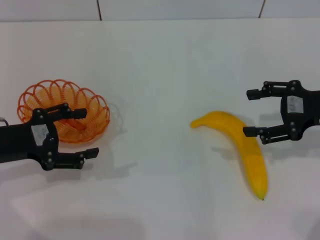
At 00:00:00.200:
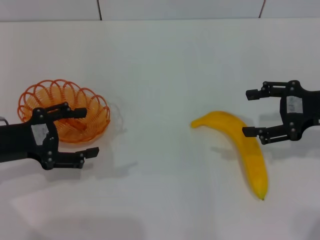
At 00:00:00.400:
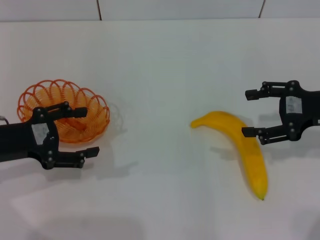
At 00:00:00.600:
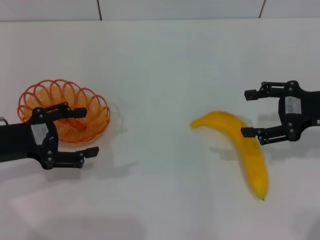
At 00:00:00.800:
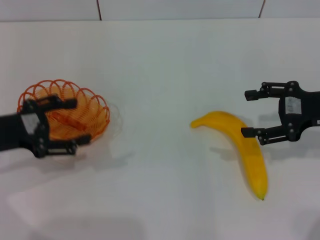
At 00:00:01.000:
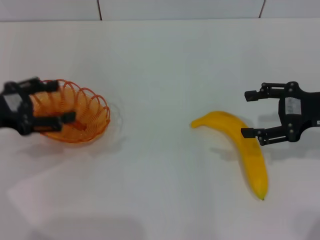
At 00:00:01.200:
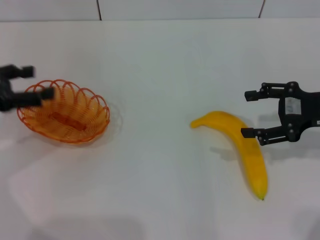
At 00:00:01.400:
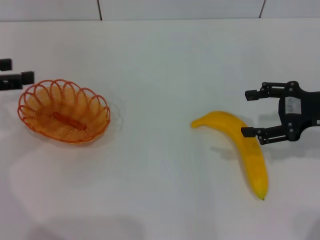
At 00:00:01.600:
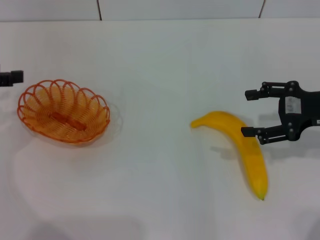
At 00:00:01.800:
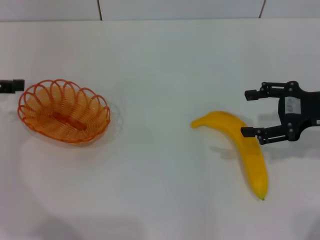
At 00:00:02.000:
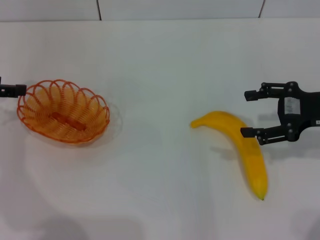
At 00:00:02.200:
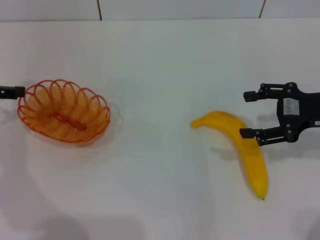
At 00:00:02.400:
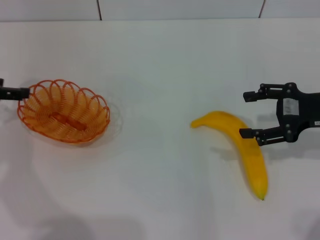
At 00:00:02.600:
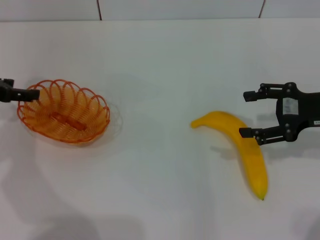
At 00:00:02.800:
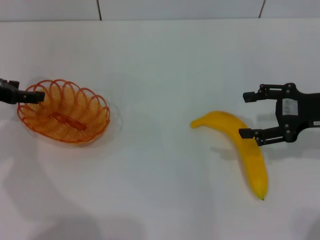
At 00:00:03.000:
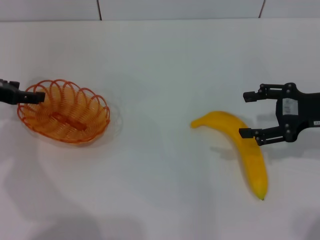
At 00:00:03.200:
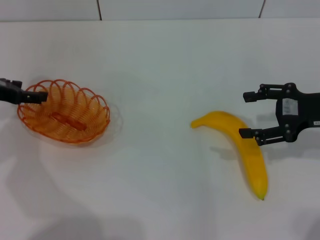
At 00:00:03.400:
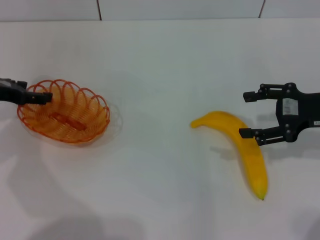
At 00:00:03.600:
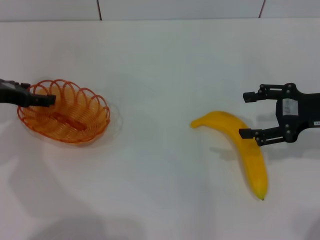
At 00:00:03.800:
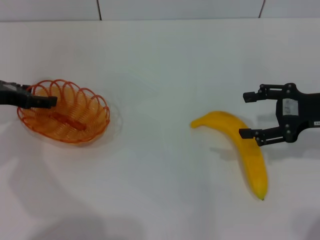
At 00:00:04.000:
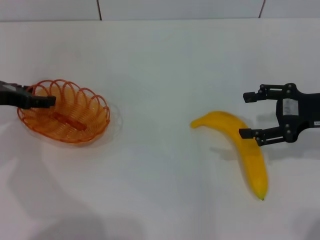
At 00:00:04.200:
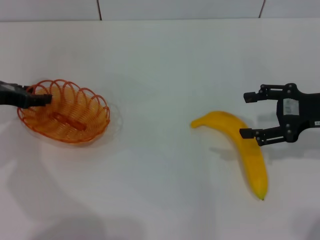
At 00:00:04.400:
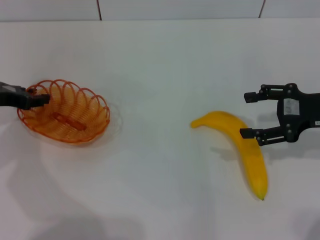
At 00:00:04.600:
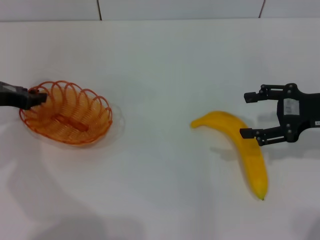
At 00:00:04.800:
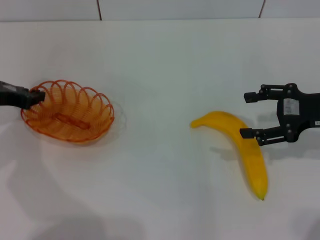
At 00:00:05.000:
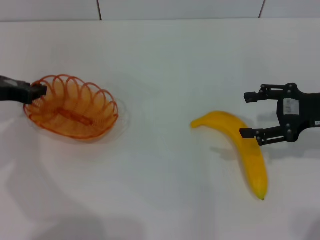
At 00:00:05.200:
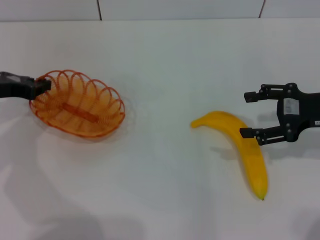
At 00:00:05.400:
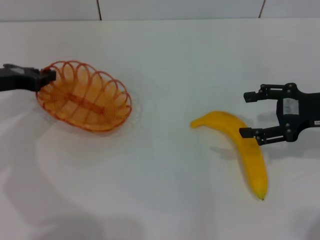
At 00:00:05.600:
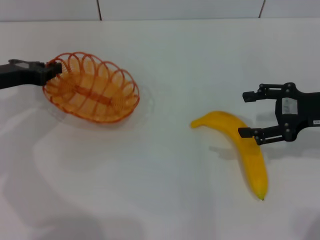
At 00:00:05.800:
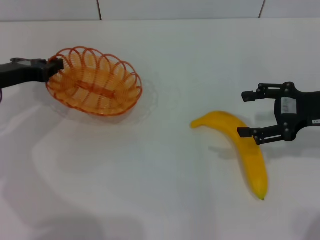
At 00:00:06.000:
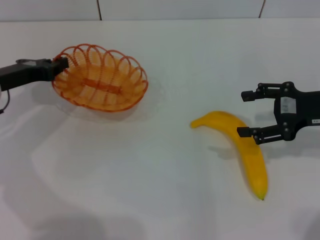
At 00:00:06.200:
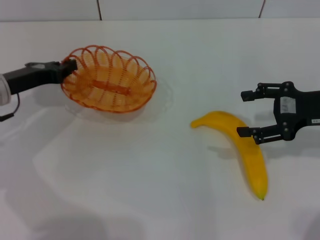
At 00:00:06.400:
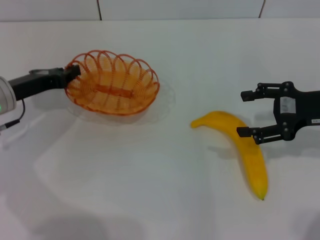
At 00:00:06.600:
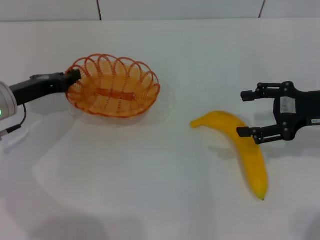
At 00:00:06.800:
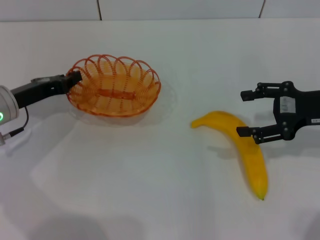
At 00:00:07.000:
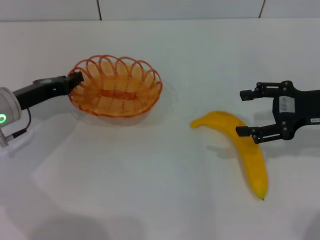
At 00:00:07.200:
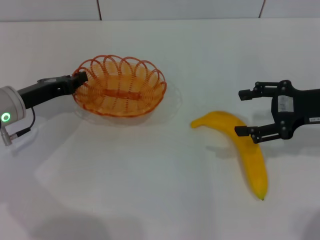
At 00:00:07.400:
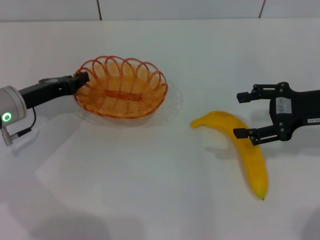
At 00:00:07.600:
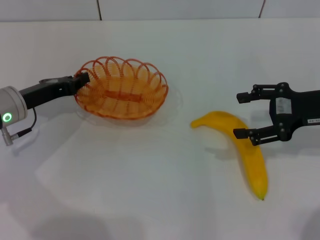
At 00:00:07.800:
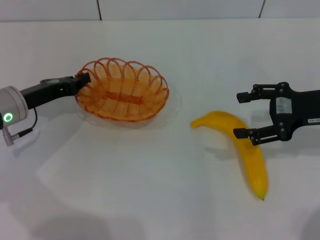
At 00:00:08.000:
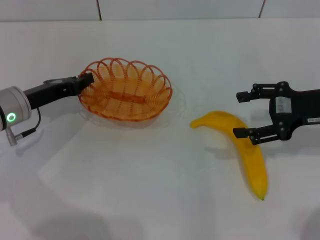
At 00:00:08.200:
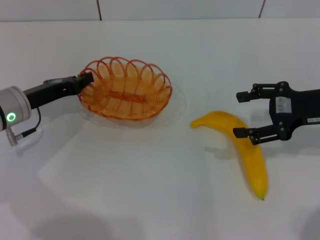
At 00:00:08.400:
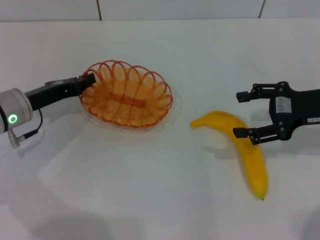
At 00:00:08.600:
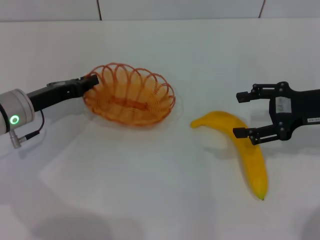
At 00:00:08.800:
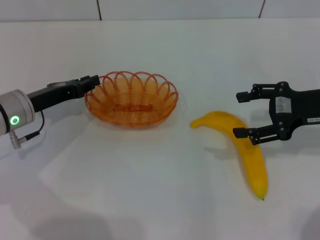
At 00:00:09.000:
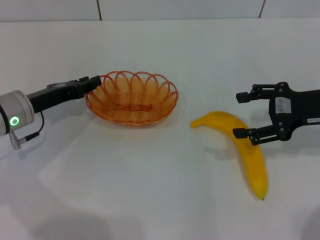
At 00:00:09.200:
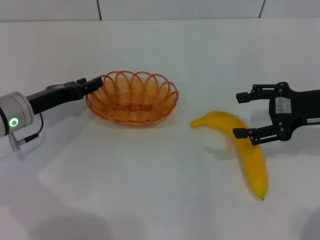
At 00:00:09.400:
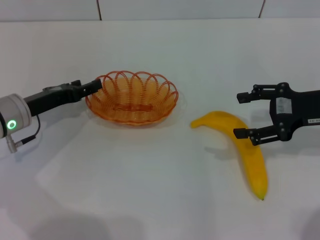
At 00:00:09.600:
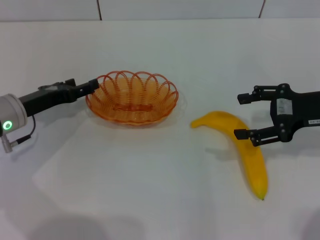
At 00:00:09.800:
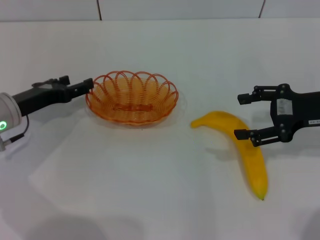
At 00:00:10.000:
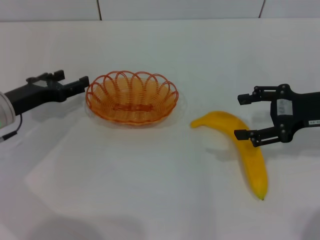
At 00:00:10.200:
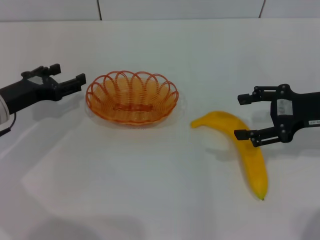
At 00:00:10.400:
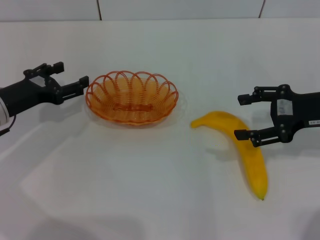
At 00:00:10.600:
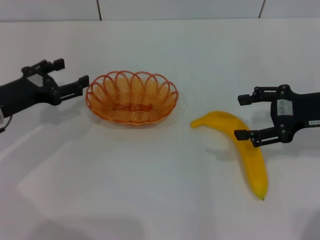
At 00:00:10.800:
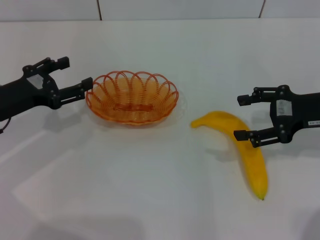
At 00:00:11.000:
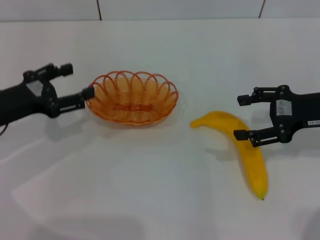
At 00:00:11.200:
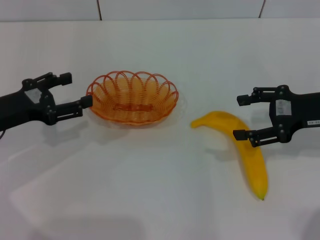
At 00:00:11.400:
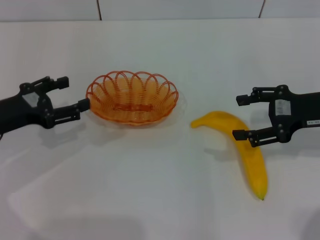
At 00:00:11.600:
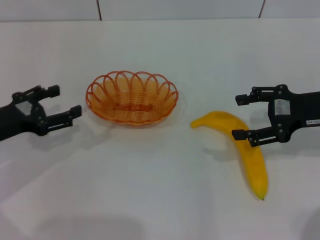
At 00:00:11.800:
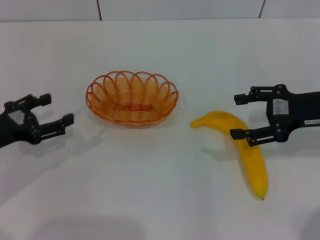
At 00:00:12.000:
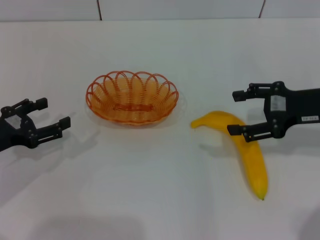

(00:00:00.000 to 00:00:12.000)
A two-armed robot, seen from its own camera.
Step, 00:00:00.000 - 00:00:05.000: Pick up the basket with the left gripper.
Step, 00:00:05.200 - 00:00:10.600: Place the basket in the center of view with the left gripper.
00:00:00.000 - 00:00:01.600: The left gripper shifts some 10 cm upward, to the left and forward.
00:00:01.600 - 00:00:03.000: The left gripper shifts some 5 cm downward.
00:00:03.000 - 00:00:04.400: The left gripper closes.
00:00:04.400 - 00:00:06.000: The left gripper closes up.
00:00:06.000 - 00:00:07.600: The grippers move only a little.
00:00:07.600 - 00:00:09.000: Both grippers stay put.
00:00:09.000 - 00:00:10.400: The left gripper opens up.
00:00:10.400 - 00:00:12.000: The left gripper shifts approximately 5 cm backward.

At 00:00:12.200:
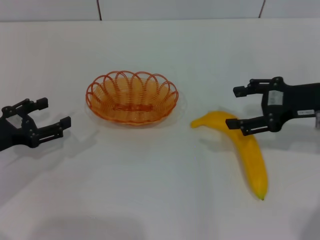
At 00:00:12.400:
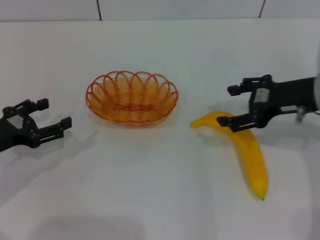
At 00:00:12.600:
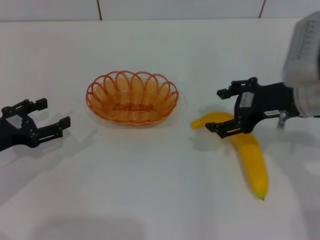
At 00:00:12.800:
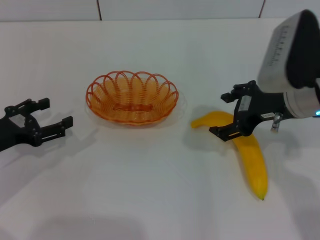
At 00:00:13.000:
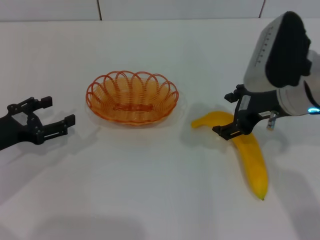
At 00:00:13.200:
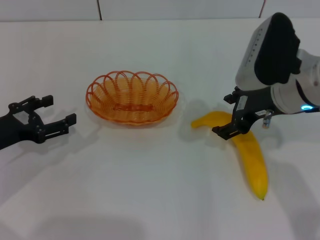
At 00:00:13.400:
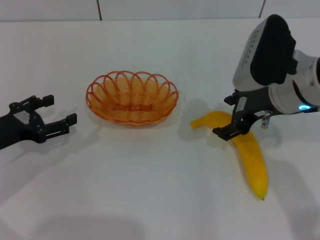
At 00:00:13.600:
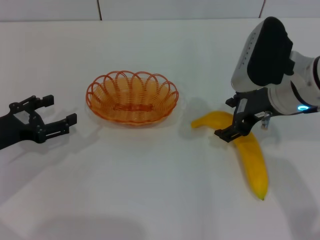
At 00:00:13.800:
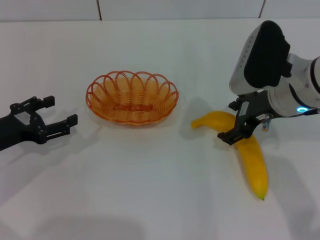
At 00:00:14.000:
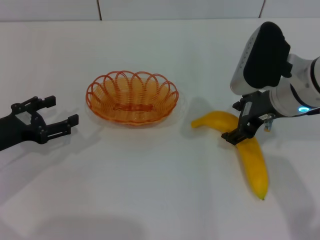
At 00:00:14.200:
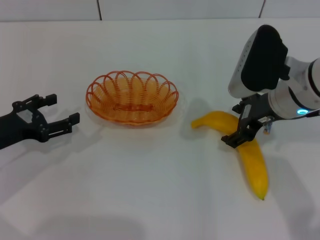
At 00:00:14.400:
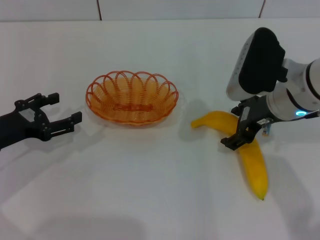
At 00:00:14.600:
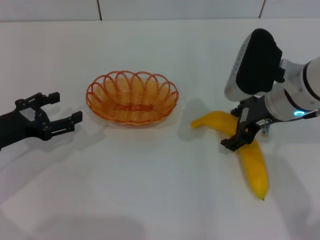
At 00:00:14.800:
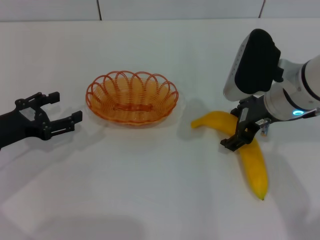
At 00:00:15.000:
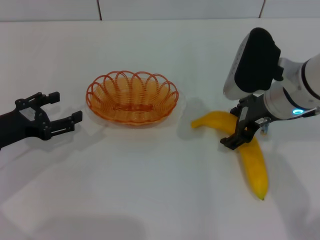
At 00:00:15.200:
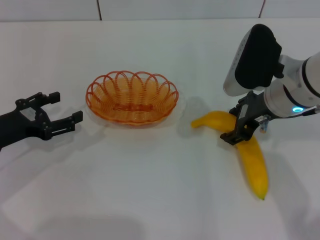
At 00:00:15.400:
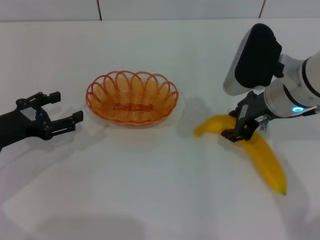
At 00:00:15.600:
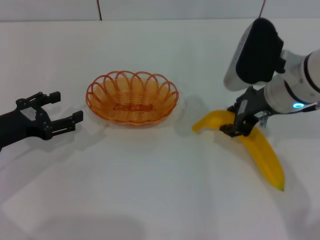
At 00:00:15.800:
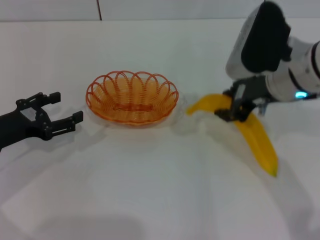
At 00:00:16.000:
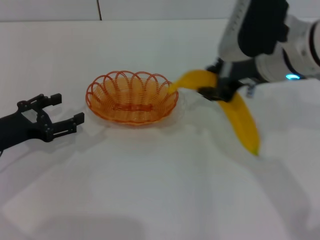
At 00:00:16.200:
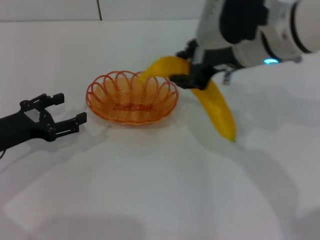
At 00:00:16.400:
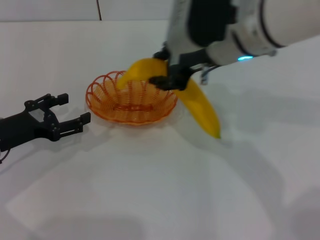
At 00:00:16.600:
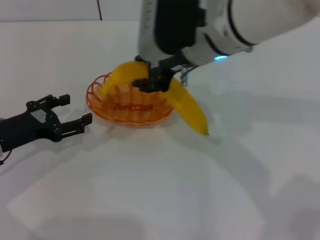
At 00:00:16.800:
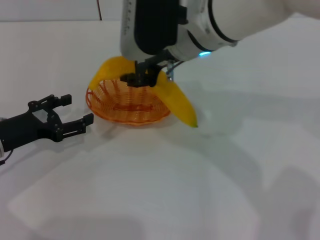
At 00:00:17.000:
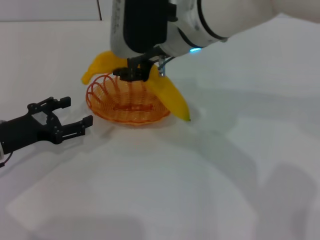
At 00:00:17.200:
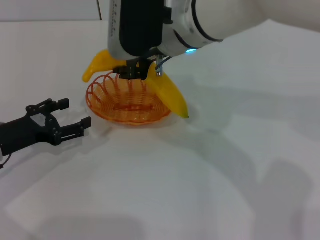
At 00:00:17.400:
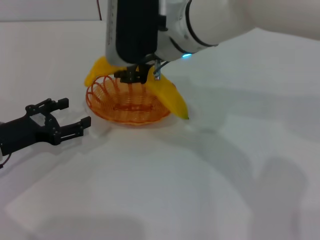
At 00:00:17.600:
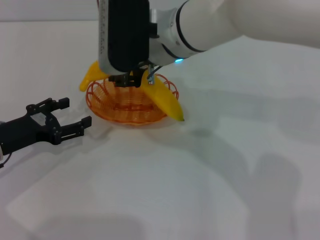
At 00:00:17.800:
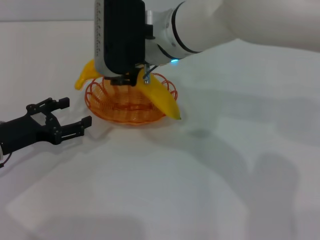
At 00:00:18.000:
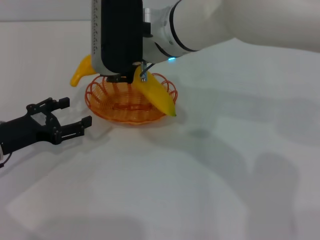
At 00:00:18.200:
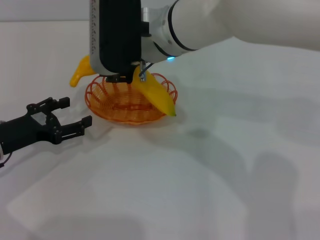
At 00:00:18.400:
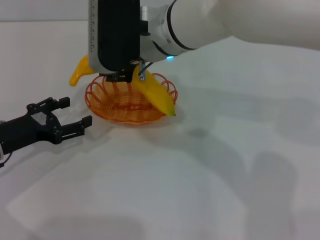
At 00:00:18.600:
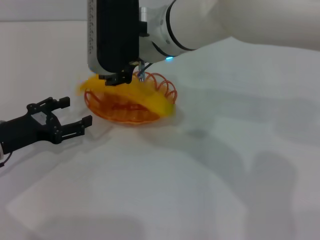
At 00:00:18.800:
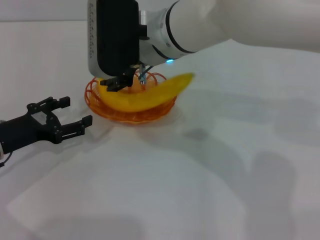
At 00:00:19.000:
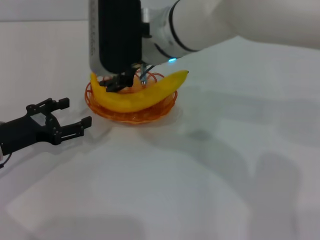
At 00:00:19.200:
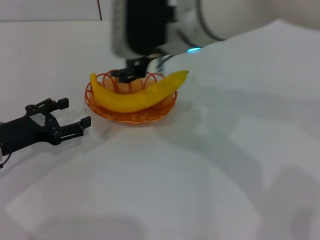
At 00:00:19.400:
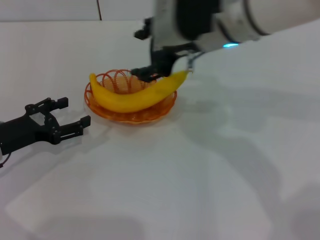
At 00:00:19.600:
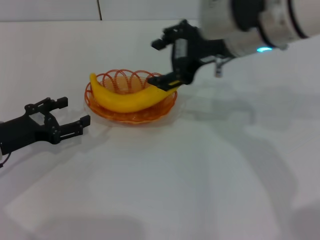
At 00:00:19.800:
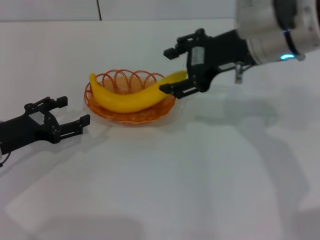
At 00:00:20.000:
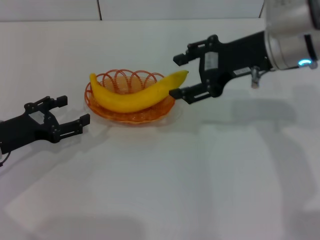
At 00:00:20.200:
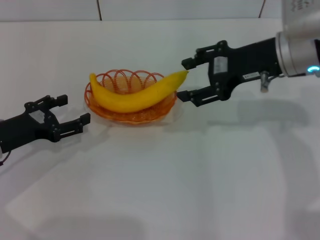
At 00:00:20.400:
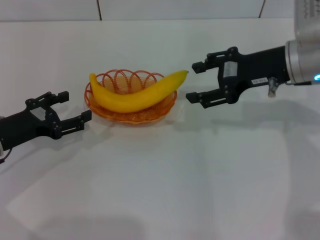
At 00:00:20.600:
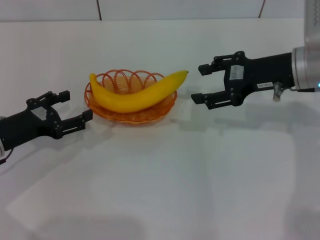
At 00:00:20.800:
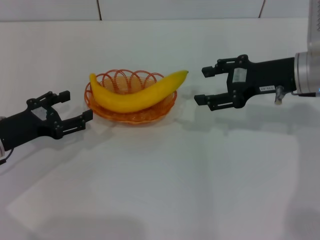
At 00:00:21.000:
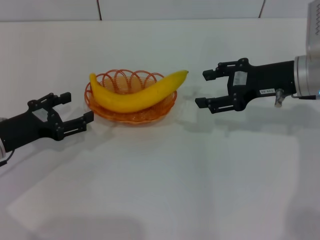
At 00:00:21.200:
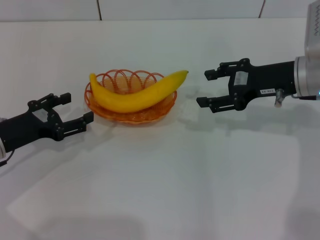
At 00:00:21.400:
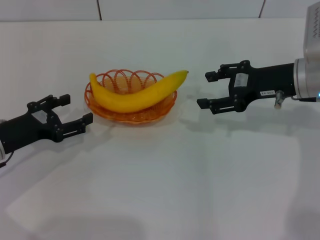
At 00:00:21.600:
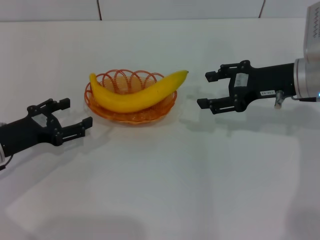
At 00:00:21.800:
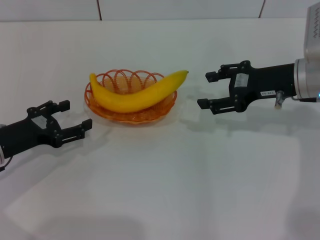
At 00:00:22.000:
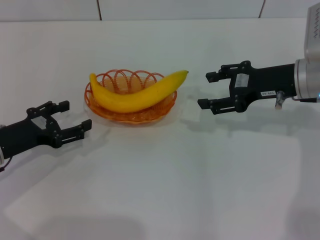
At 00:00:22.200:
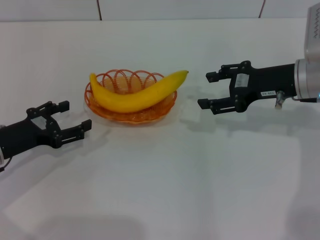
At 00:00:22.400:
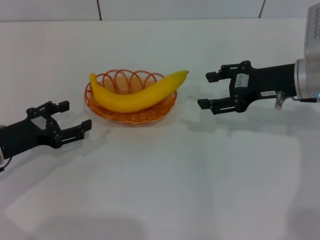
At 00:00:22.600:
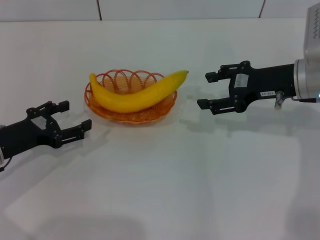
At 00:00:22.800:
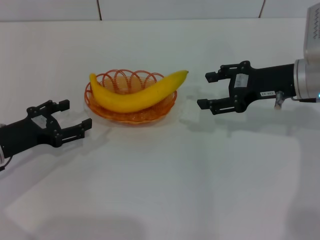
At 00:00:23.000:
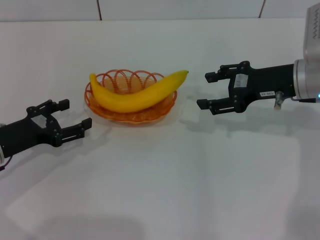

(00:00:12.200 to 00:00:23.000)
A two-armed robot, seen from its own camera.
Step, 00:00:12.200 - 00:00:15.400: Pick up the banana with the right gripper.
Step, 00:00:15.800 - 00:00:20.000: Place the banana into the basket with the right gripper.
00:00:12.200 - 00:00:13.800: The right gripper travels to the left by some 10 cm.
00:00:13.800 - 00:00:15.200: Both grippers stay about where they are.
00:00:15.200 - 00:00:16.800: The right gripper goes roughly 15 cm to the left and upward, and closes up.
00:00:16.800 - 00:00:18.400: The grippers move only a little.
00:00:18.400 - 00:00:20.000: The right gripper shifts about 15 cm to the right, and opens.
00:00:20.000 - 00:00:21.400: The right gripper goes roughly 10 cm downward and to the right.
00:00:21.400 - 00:00:23.000: Neither gripper changes place.
